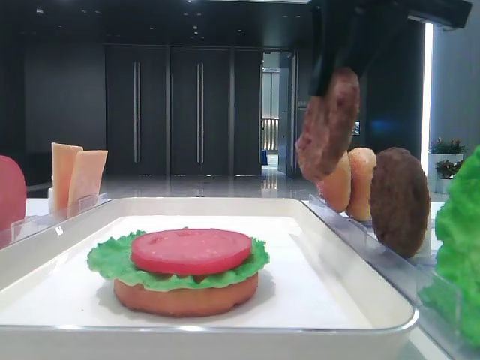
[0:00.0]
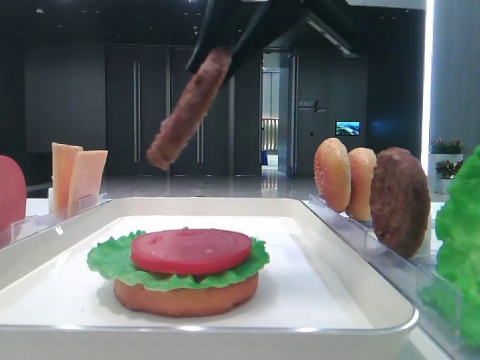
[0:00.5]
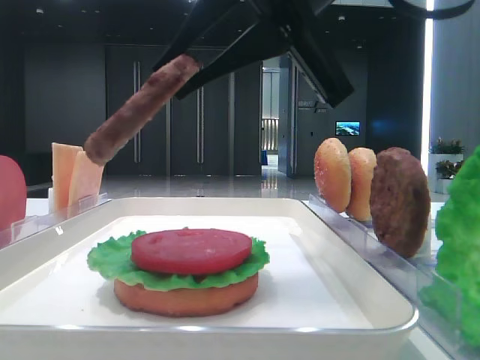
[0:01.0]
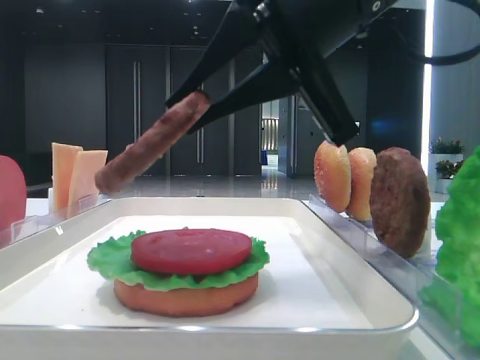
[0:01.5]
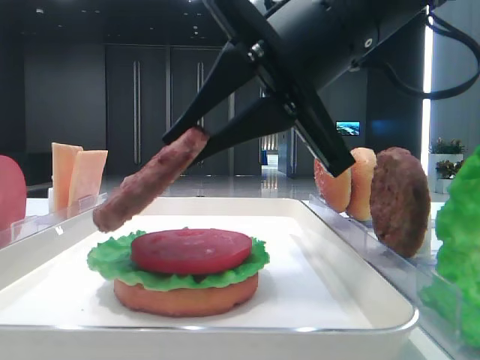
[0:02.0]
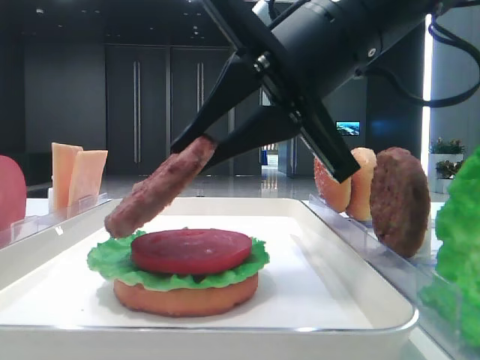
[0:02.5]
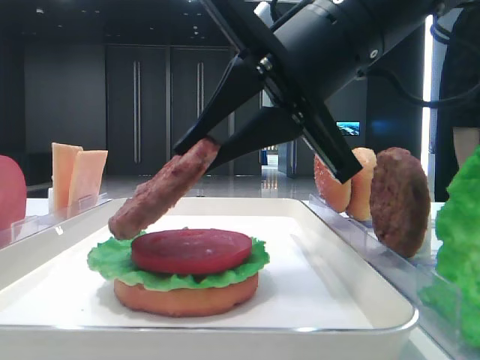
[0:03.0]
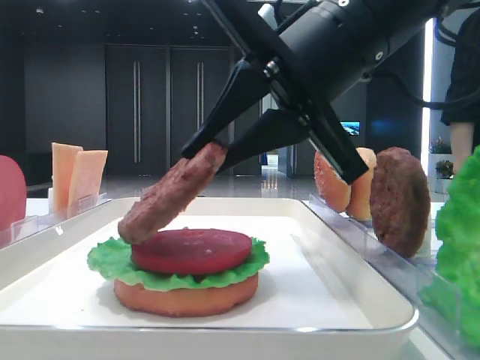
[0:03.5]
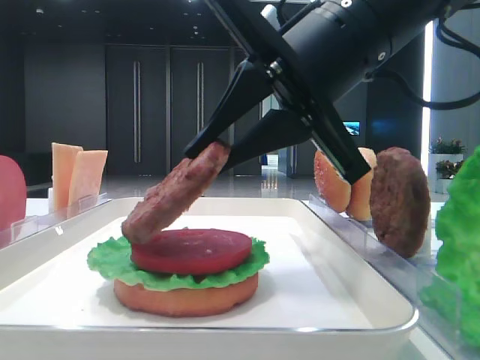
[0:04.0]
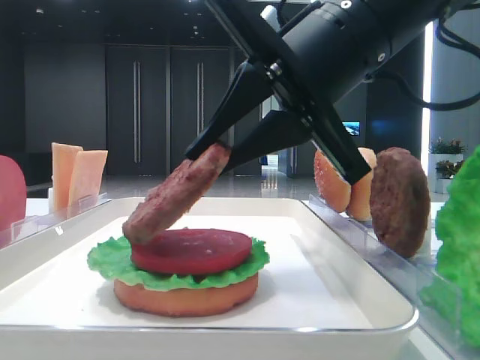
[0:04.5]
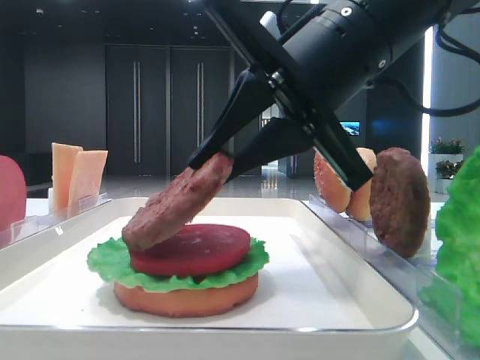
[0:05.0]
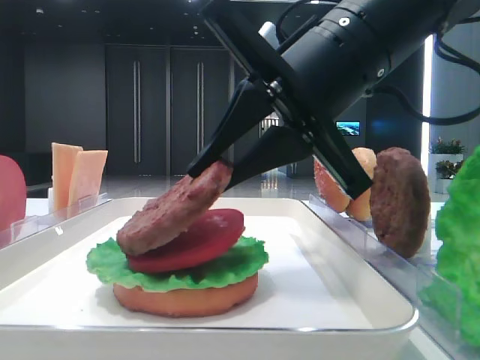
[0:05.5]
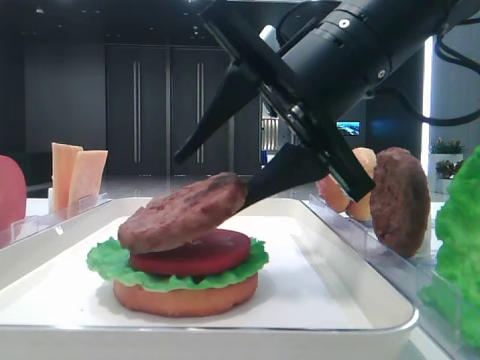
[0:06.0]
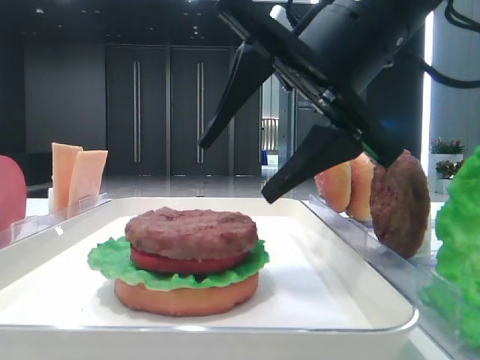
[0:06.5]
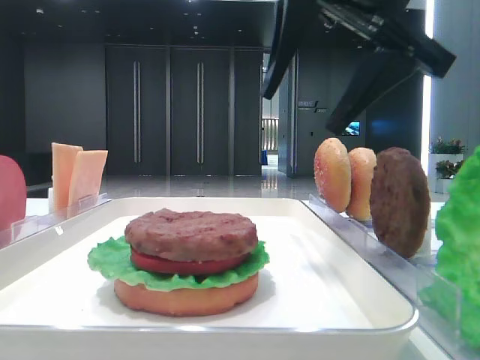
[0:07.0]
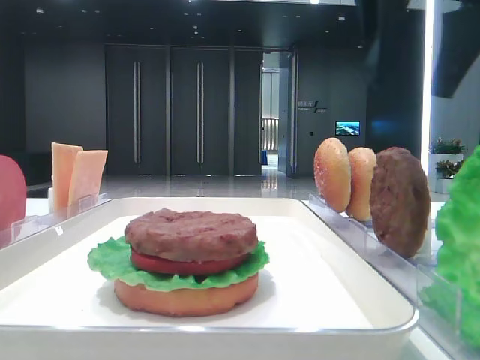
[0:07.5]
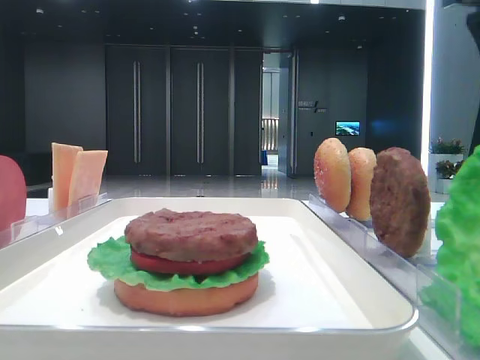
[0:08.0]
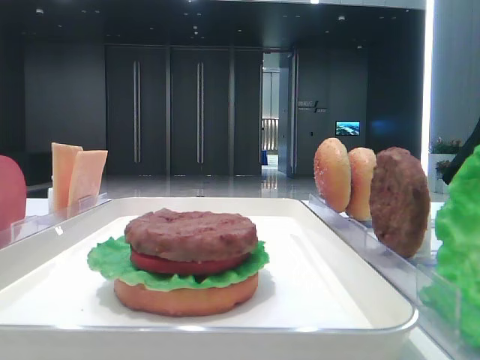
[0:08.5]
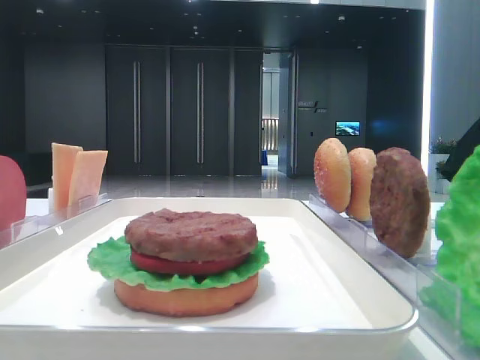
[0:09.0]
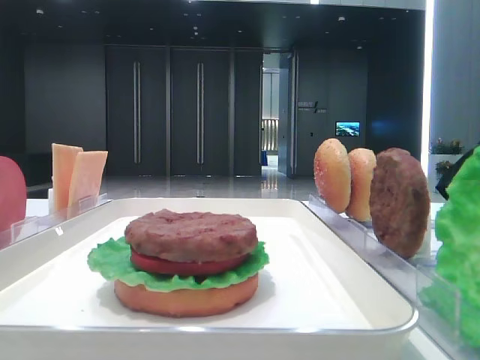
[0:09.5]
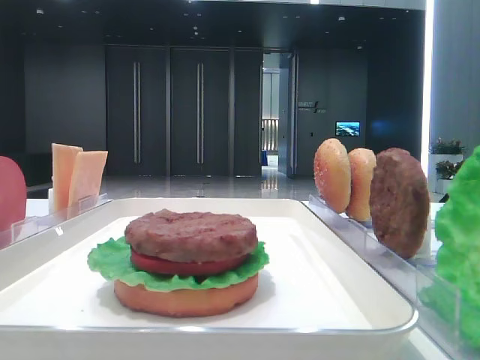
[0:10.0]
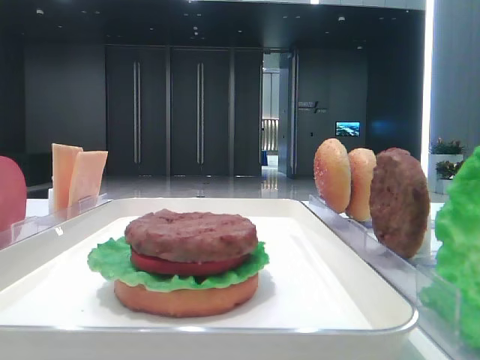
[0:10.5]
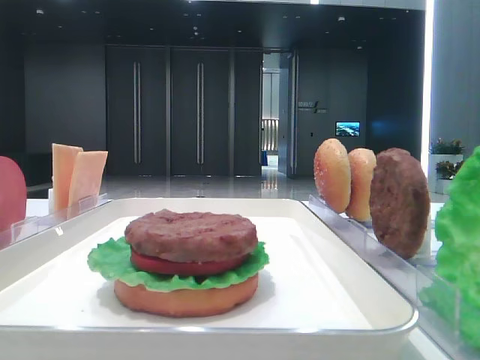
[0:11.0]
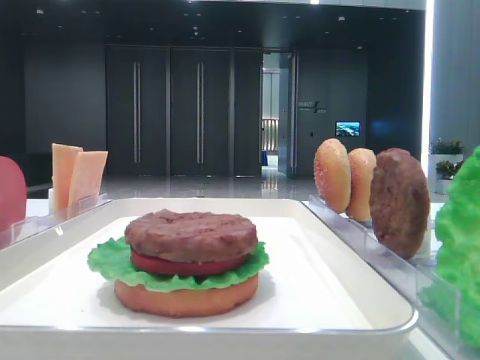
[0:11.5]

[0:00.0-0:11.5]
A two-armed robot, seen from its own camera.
Step, 0:00.0 to 0:06.0: Place the patty on the tomato slice with the right hand.
0:00.0 to 0:02.0: The right gripper goes about 10 cm downward.
0:02.0 to 0:04.0: The grippers move only a little.
0:04.0 to 0:06.0: The right gripper opens up.
0:06.0 to 0:07.5: The right gripper is displaced upward and to the right by roughly 15 cm.
0:07.5 to 0:09.5: The right gripper shifts some 25 cm backward and to the right.

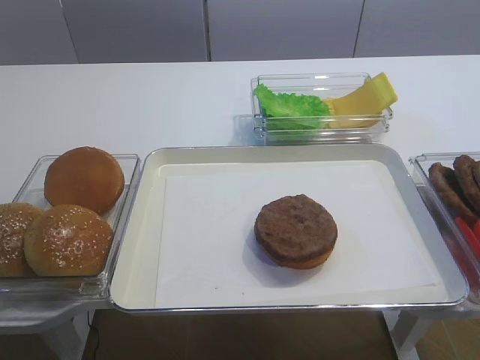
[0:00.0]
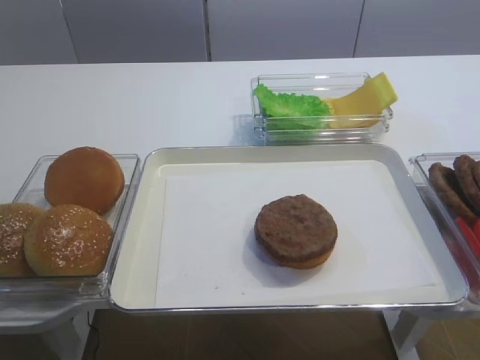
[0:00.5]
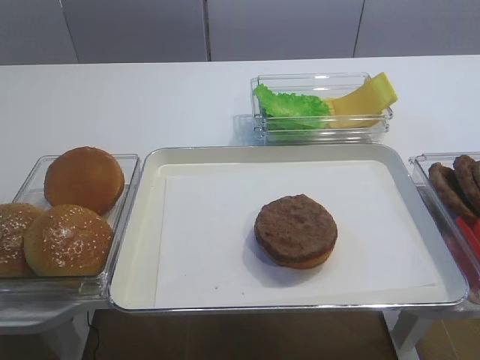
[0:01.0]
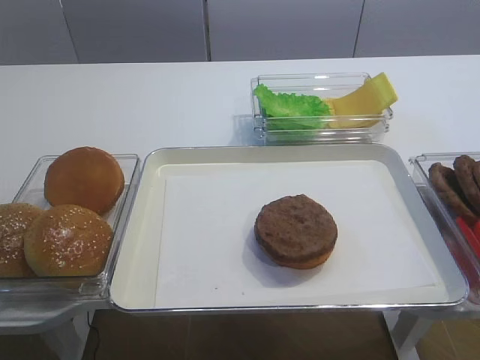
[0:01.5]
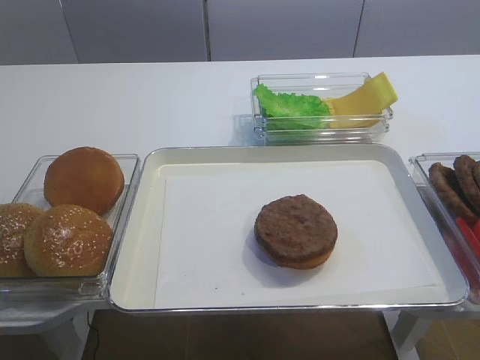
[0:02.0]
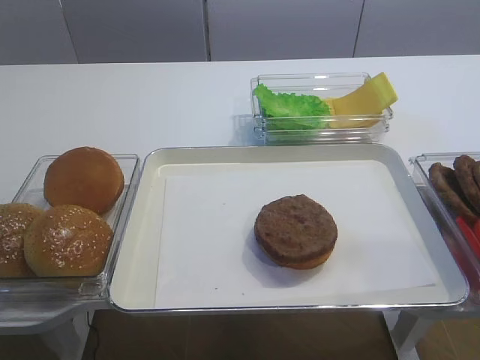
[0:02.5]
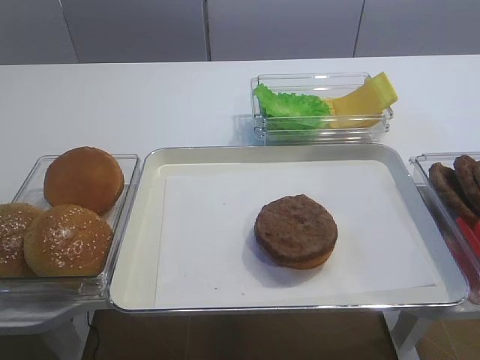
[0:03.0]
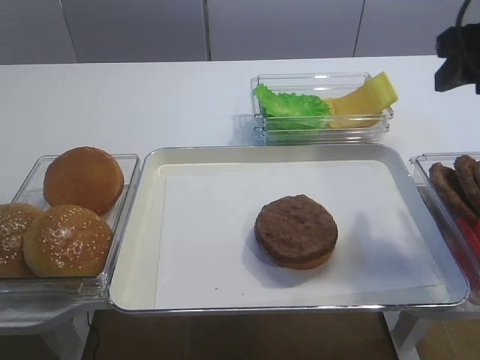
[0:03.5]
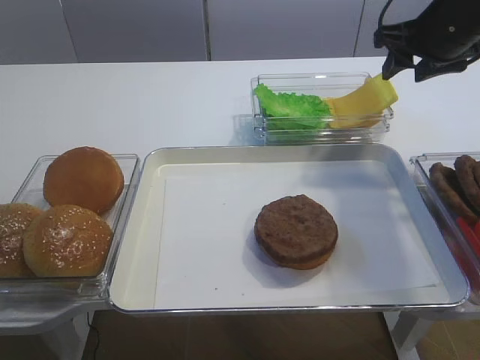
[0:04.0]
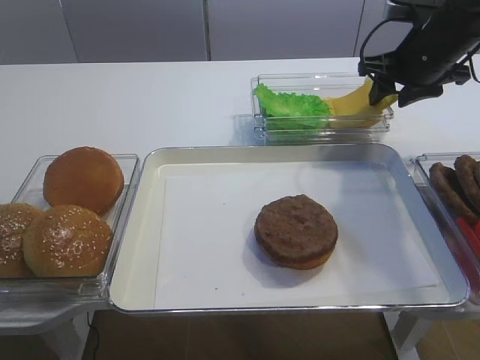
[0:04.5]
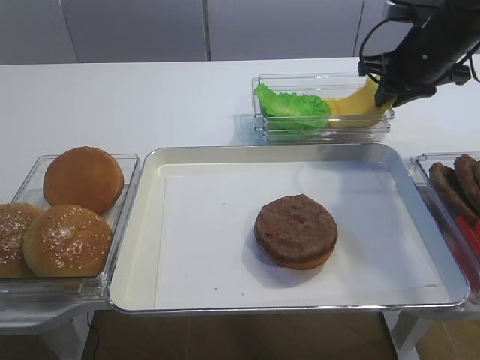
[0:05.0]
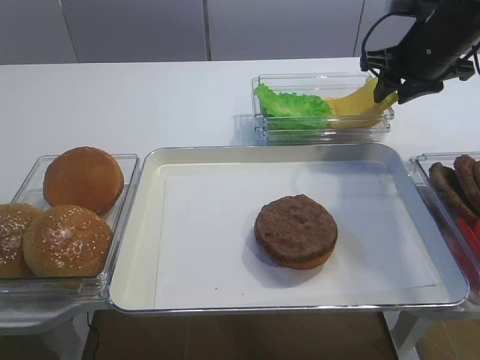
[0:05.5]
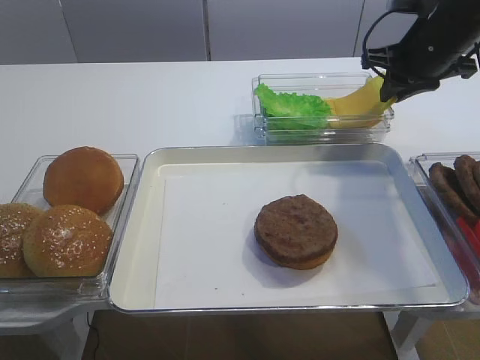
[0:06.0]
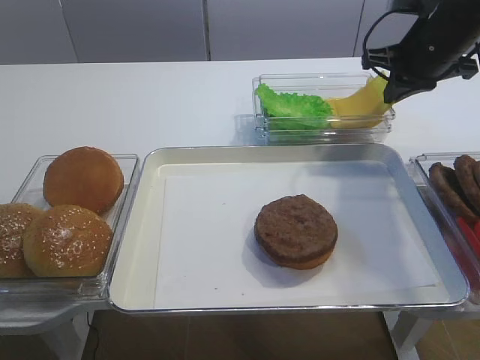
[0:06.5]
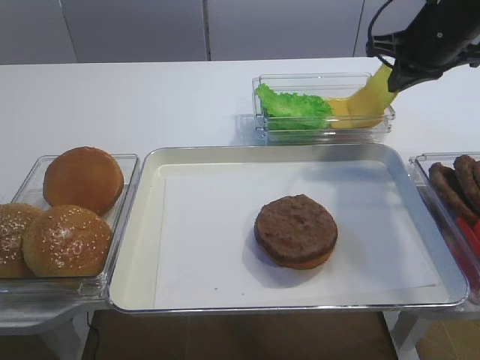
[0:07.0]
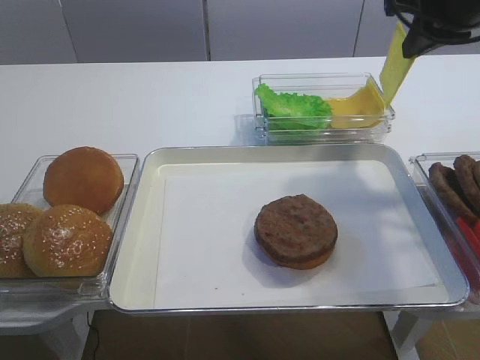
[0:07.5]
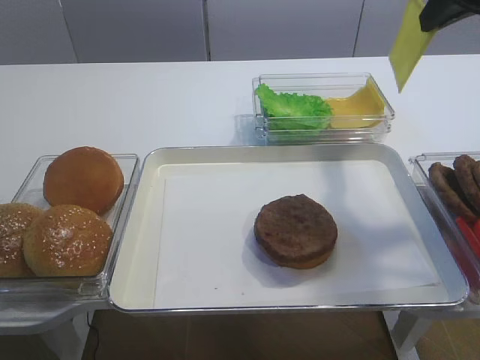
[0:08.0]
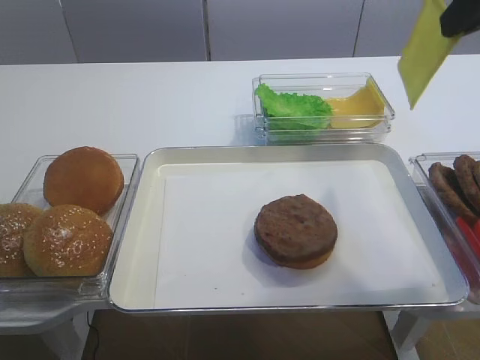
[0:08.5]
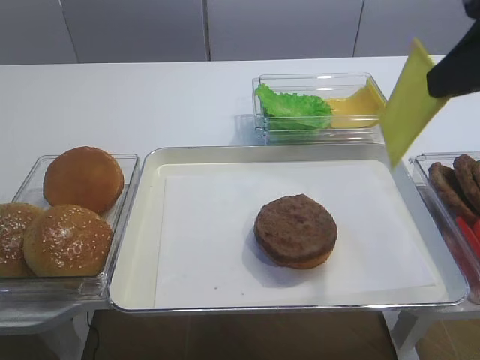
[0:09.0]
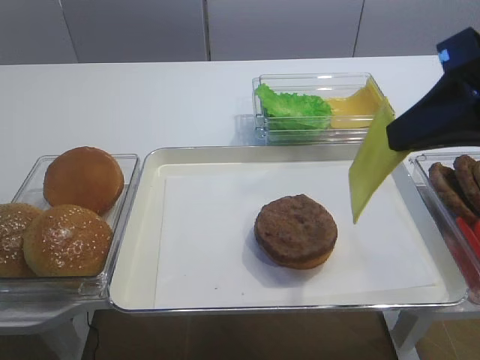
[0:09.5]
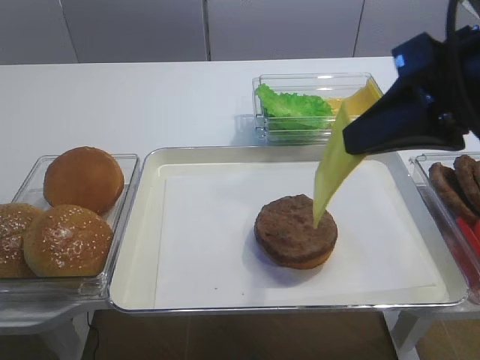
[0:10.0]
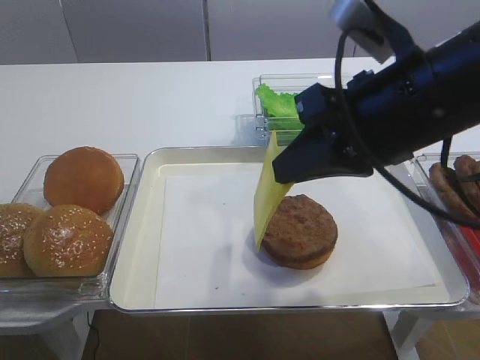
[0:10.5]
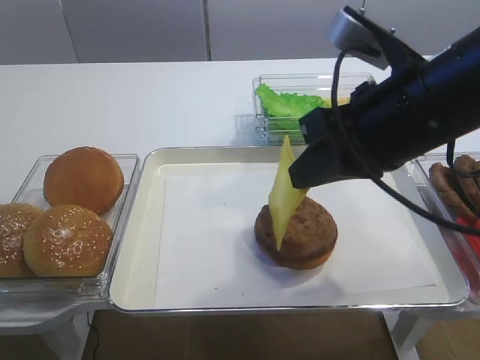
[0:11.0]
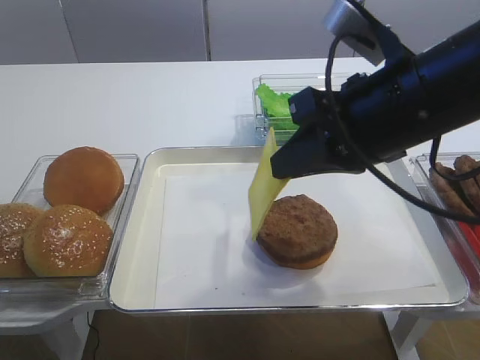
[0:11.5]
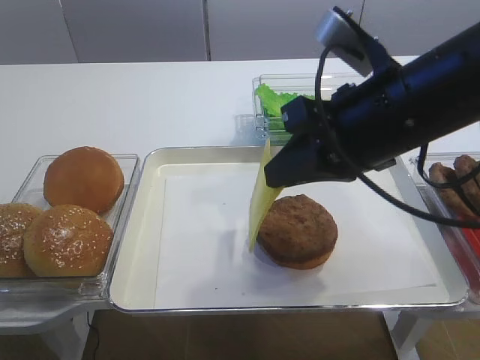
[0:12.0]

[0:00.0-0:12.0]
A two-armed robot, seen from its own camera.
Step, 0:00.0 to 0:07.5: Pick up the cheese slice with the right gripper.
0:02.0 to 0:04.0: The right gripper moves forward, roughly 40 cm.
0:04.0 to 0:06.0: The right gripper changes place by about 5 cm, and closes up.
0:06.0 to 0:08.0: The right gripper is displaced upward and backward by roughly 15 cm.
0:08.0 to 0:10.0: The right gripper heads backward, covering roughly 15 cm.
0:10.0 to 0:12.0: The right gripper moves to the left, about 5 cm.

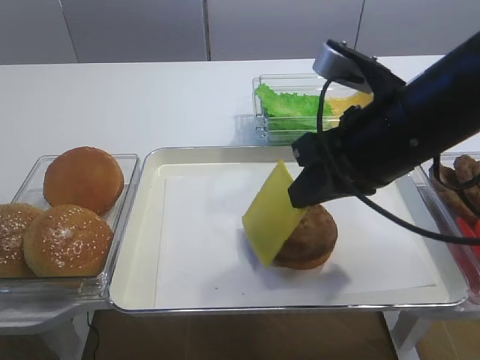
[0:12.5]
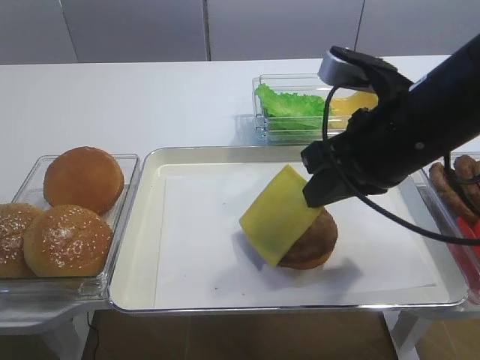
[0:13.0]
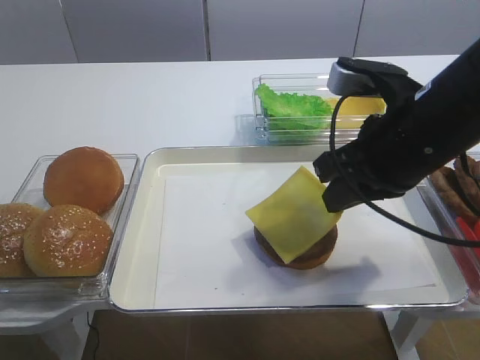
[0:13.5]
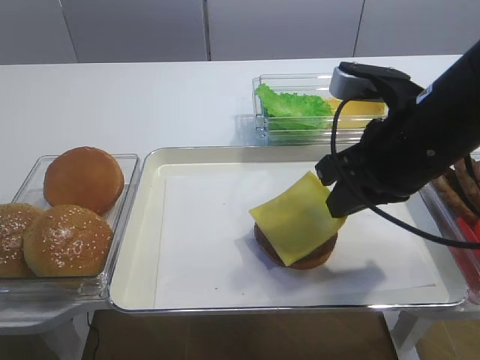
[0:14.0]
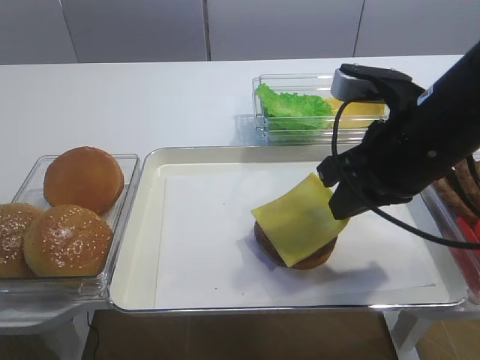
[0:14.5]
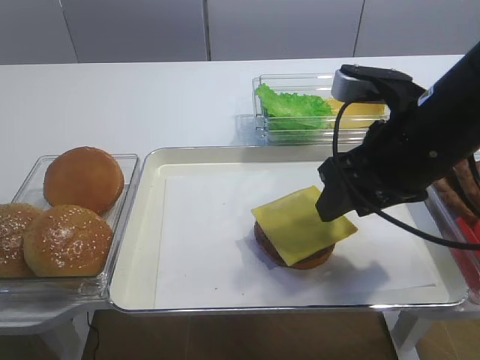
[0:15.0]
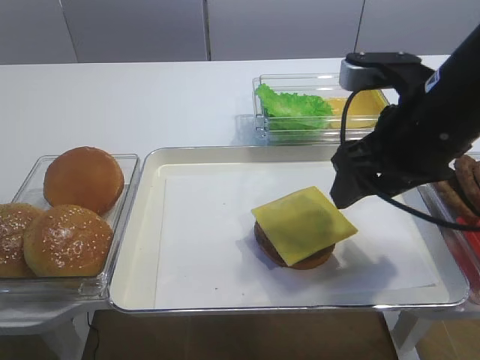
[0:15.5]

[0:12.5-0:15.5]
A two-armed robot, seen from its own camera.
Step, 0:12.5 to 0:14.5: Place the cheese slice on the cutlet with the right gripper.
0:12.5 to 0:14.0: The grippers move only a little.
0:14.0 to 0:15.5: The right gripper opens up.
